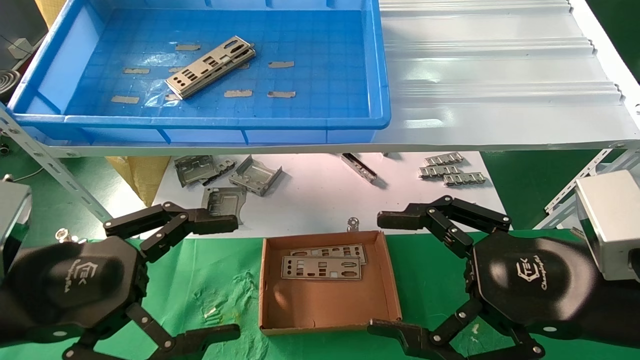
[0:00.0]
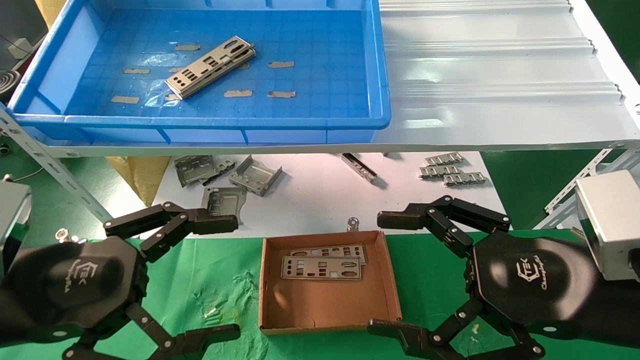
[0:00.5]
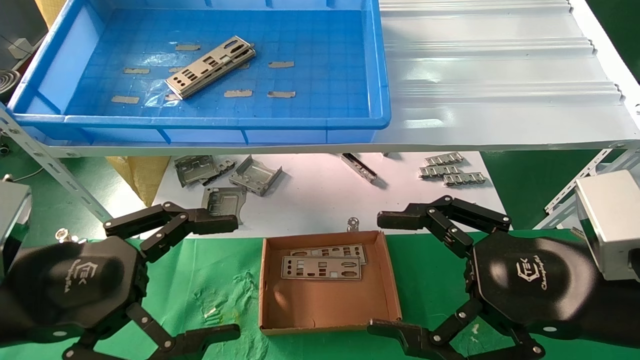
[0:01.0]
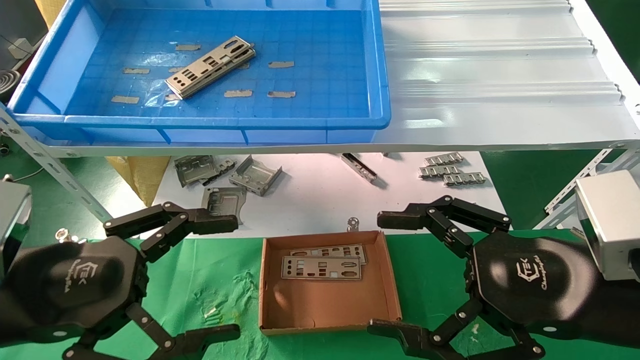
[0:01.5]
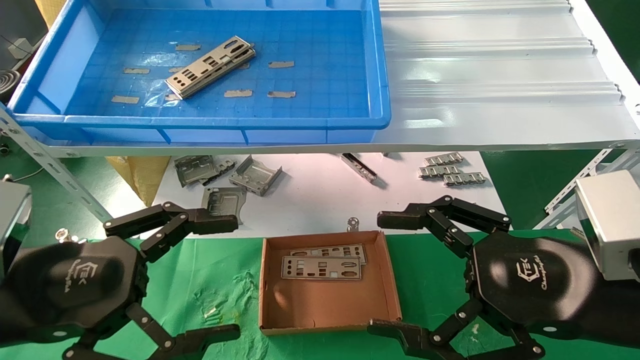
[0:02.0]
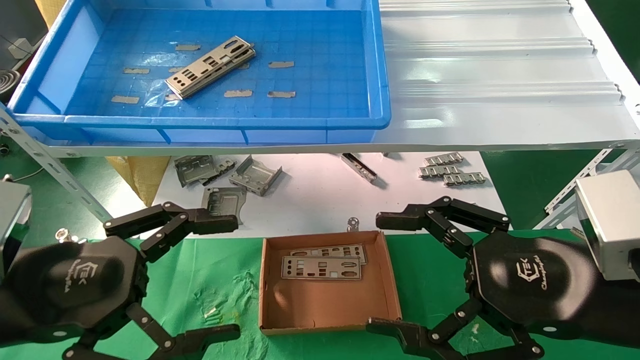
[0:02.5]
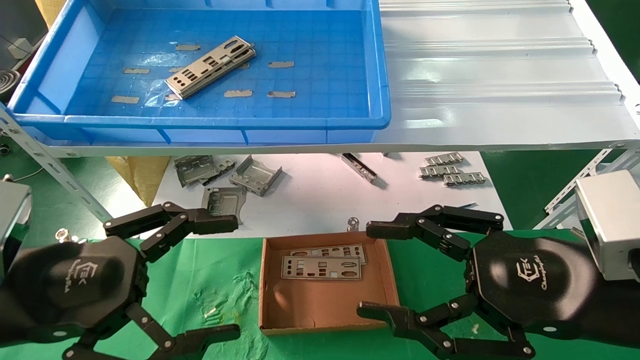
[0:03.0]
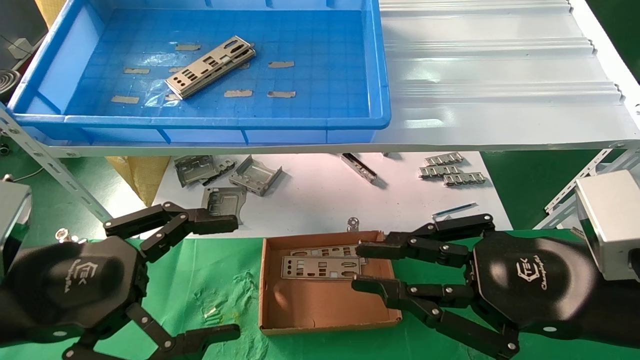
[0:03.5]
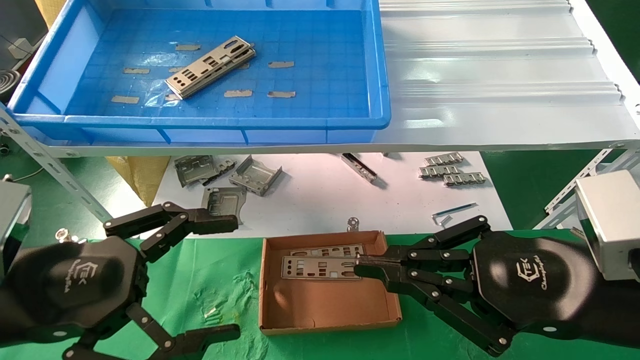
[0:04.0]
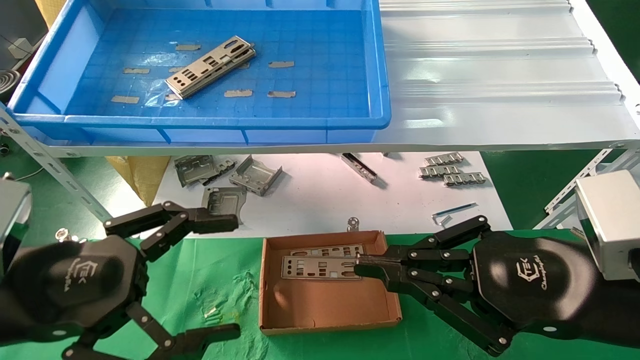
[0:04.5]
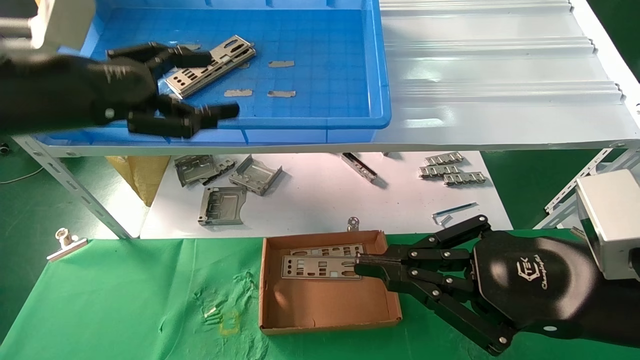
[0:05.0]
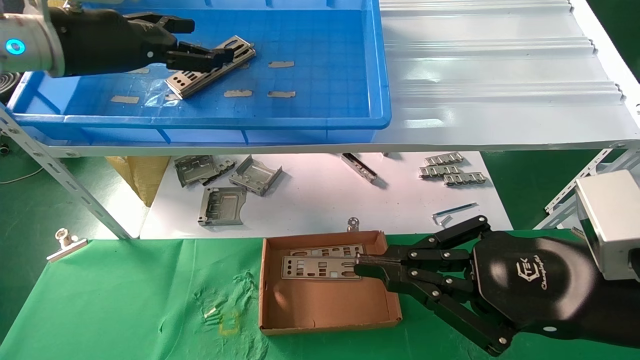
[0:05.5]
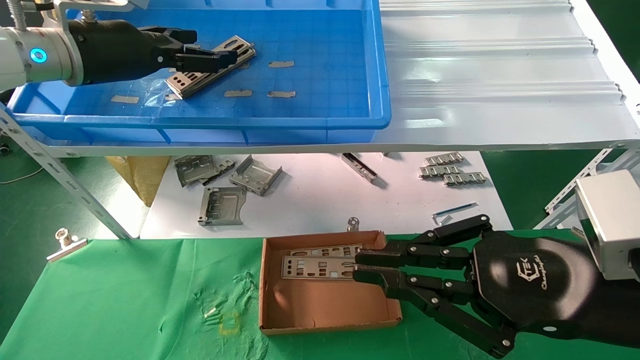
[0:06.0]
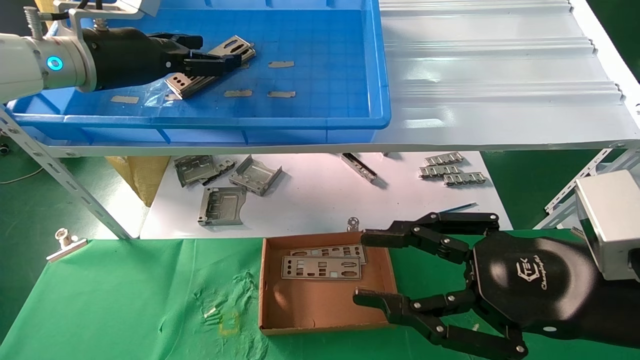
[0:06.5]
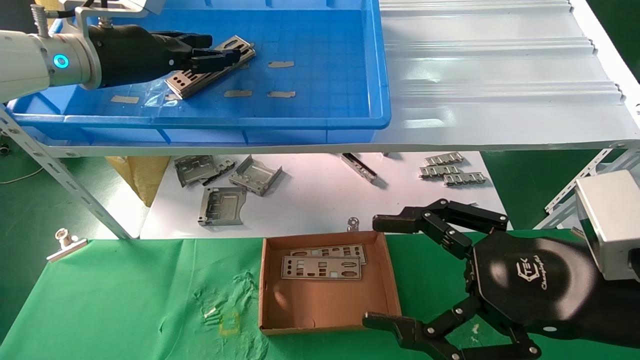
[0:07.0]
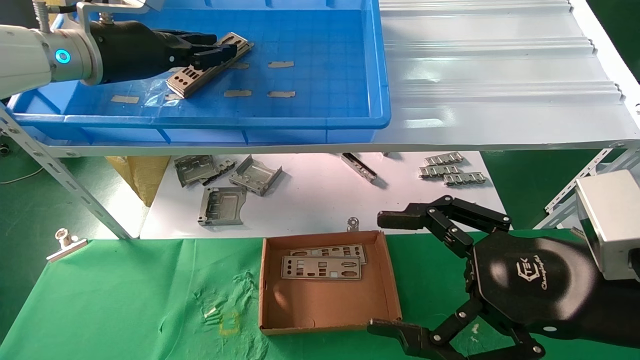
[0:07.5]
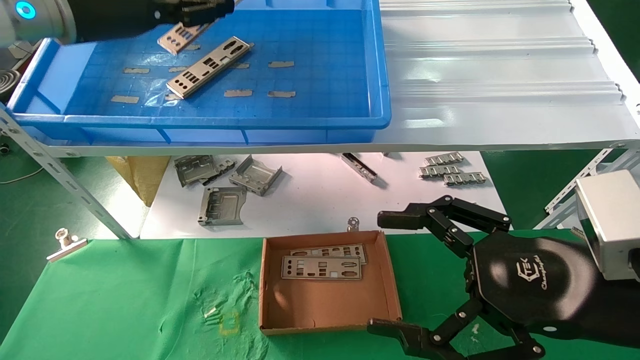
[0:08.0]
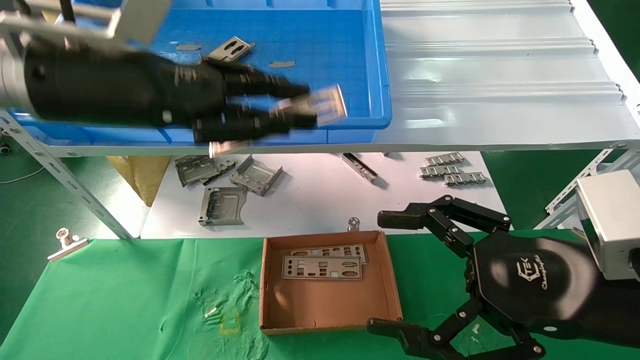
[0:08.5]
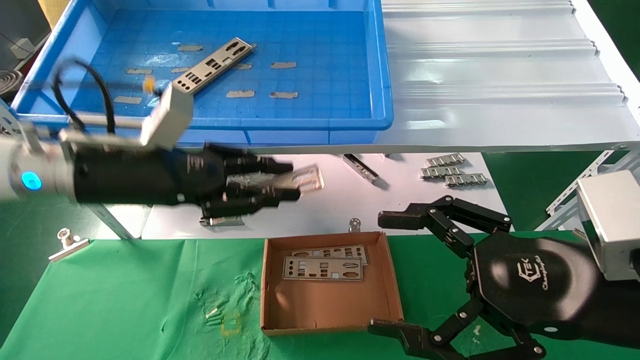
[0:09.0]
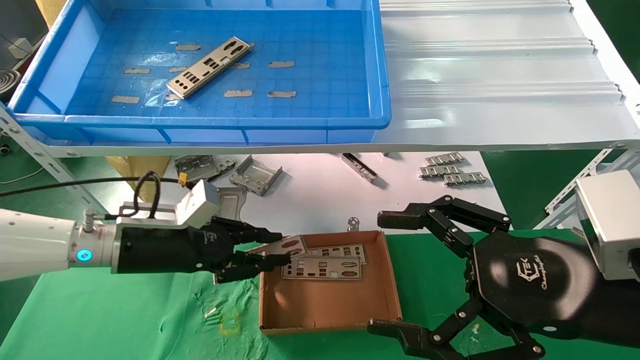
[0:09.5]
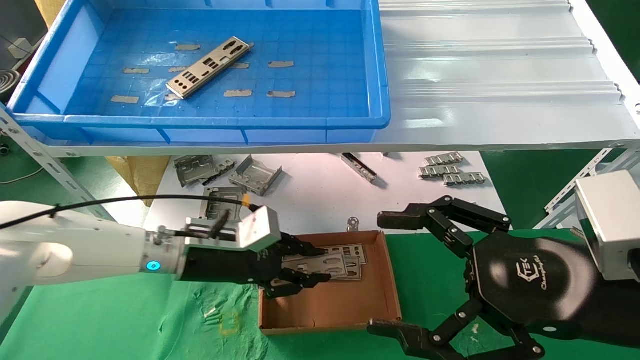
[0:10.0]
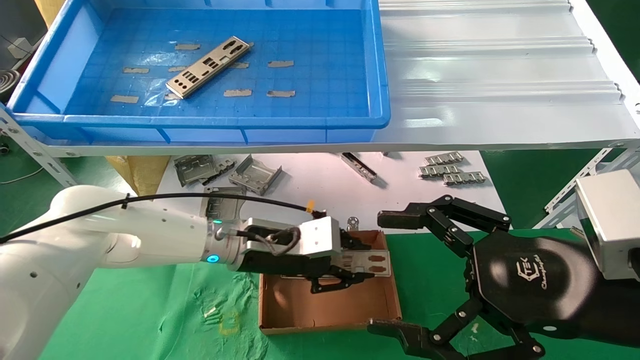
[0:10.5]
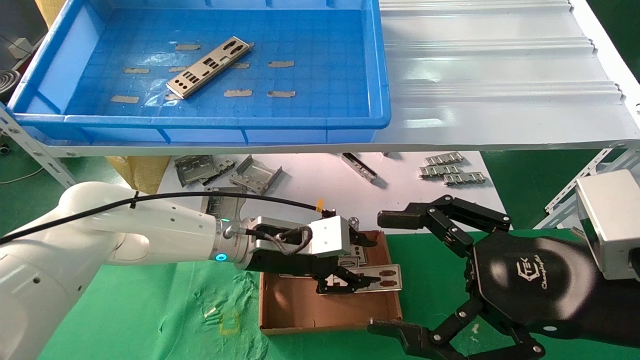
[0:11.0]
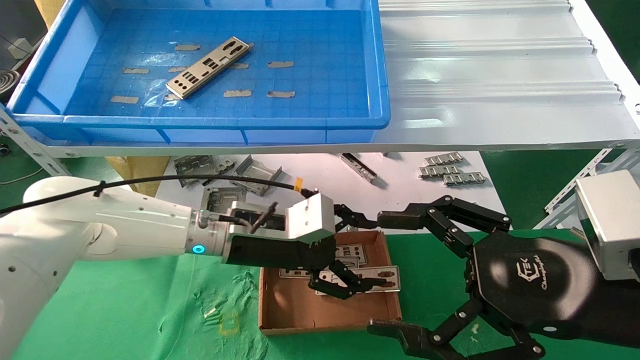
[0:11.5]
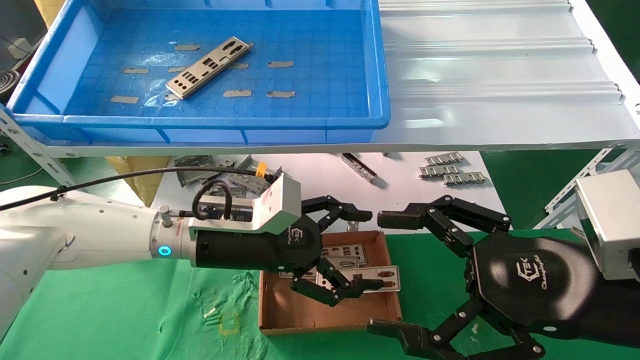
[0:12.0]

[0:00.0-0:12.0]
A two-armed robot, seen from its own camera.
Task of the whole recording: pick up the parts on the tray and put them in the cardboard box.
Step, 0:05.0 to 0:07.5: Pick up the IO bracket from the container box.
Step, 0:08.0 to 0:11.0: Place the IO bracket into the ingredient slot.
0:00.0 to 0:02.0: Neither gripper changes place.
0:02.0 to 0:04.0: The right gripper closes its fingers.
0:04.0 to 0:06.0: The left gripper is displaced forward and upward by approximately 30 cm.
0:06.0 to 0:08.0: The right gripper opens up; the left gripper closes.
0:08.0 to 0:10.0: The left gripper heads downward and to the right, covering about 30 cm.
0:10.0 to 0:12.0: The left gripper opens its fingers.

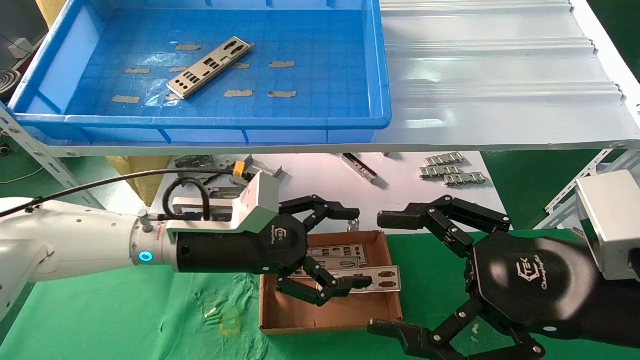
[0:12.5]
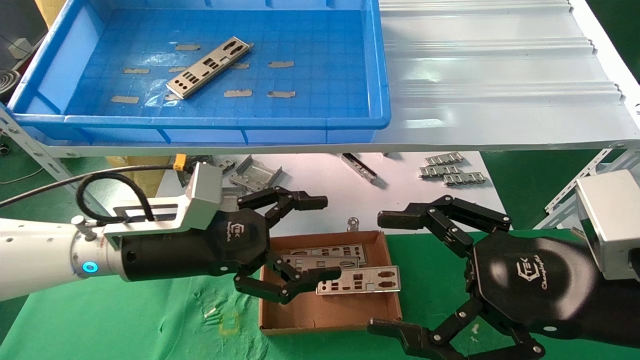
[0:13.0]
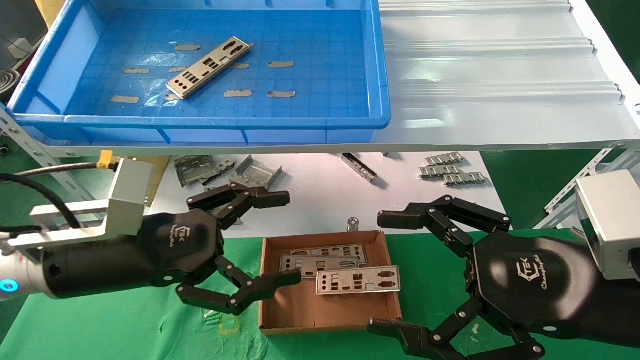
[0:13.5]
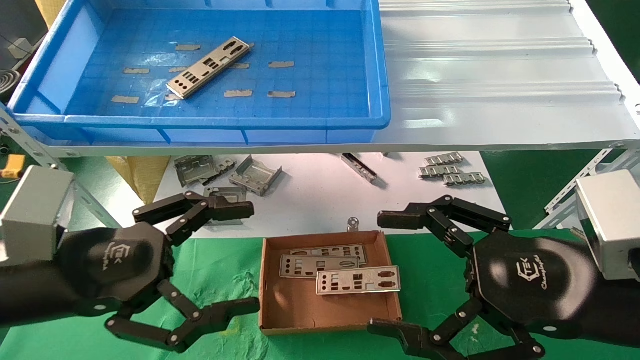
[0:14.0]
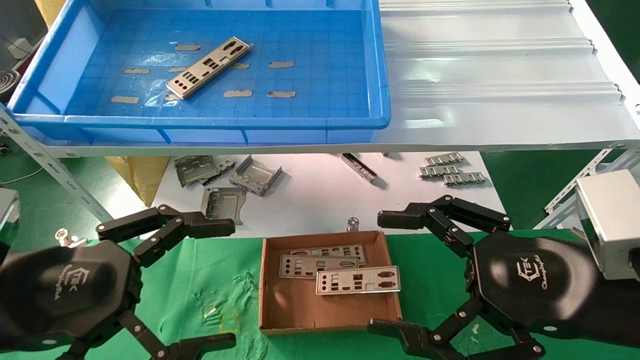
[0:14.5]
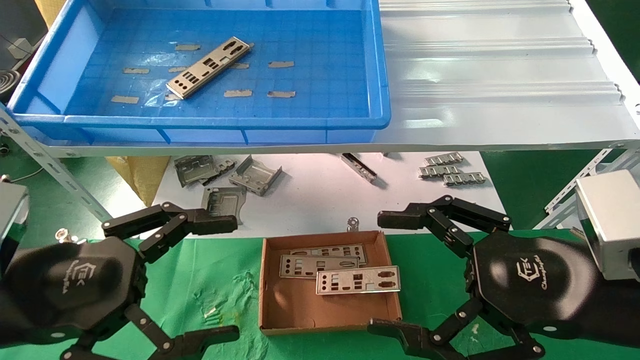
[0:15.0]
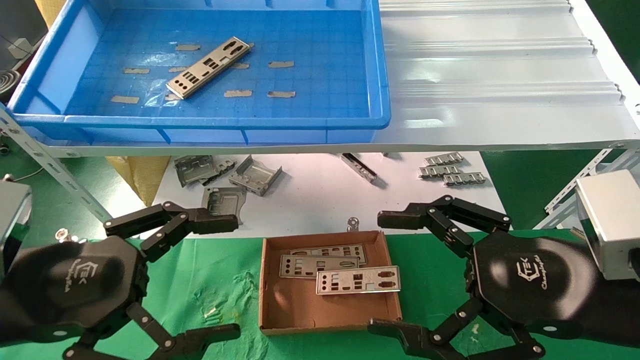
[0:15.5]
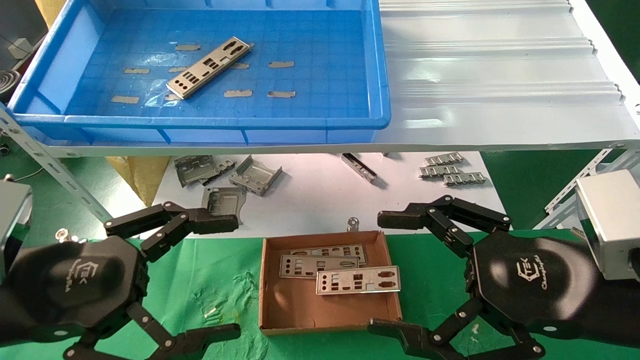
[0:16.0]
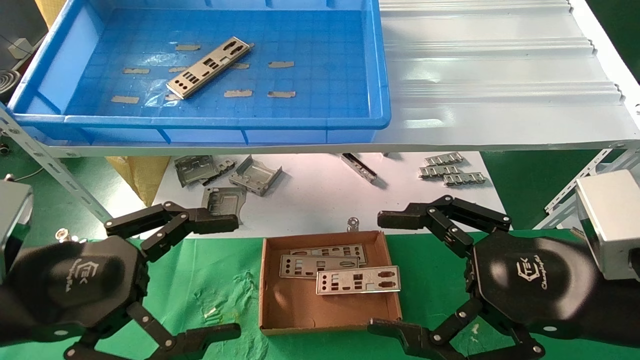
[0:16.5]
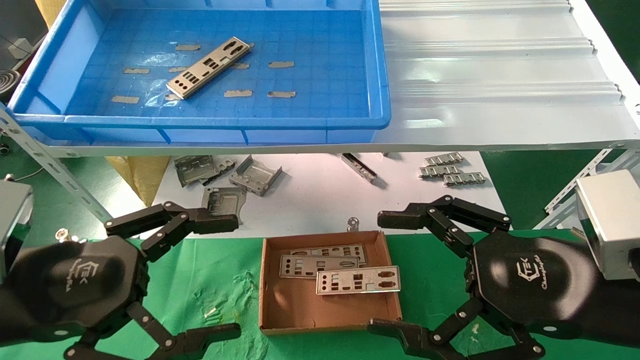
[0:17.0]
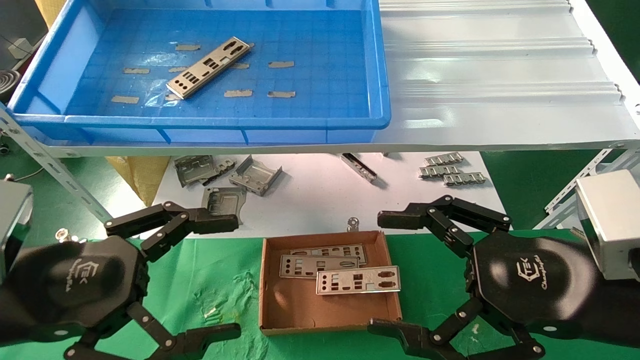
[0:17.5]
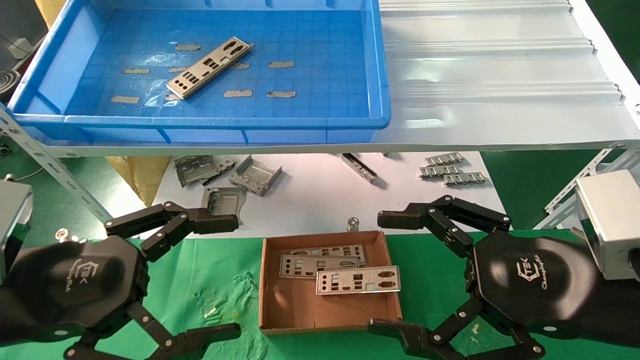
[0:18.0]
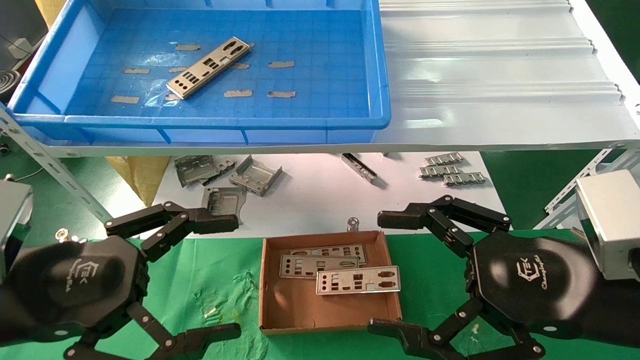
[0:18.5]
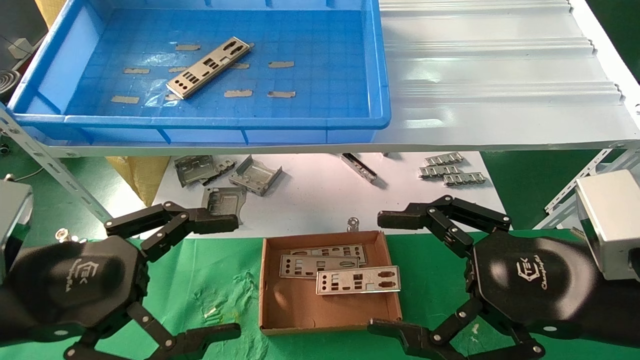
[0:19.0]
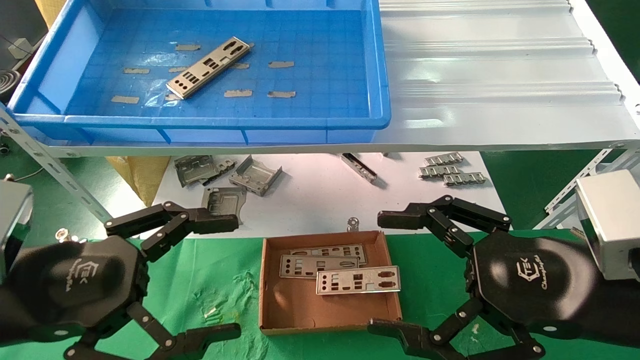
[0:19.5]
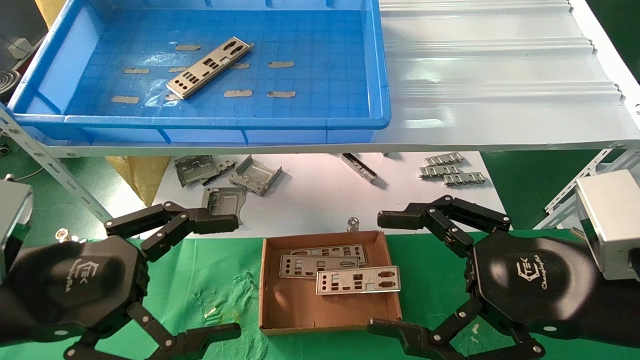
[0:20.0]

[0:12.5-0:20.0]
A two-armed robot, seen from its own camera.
Task of the whole recording: pick up the parts on the tray and put them in the cardboard box.
0:12.5 to 0:14.5: The left gripper moves backward and to the left, roughly 20 cm.
0:14.5 to 0:20.0: Neither gripper changes place.
